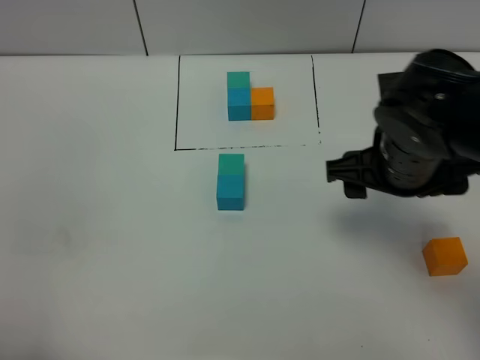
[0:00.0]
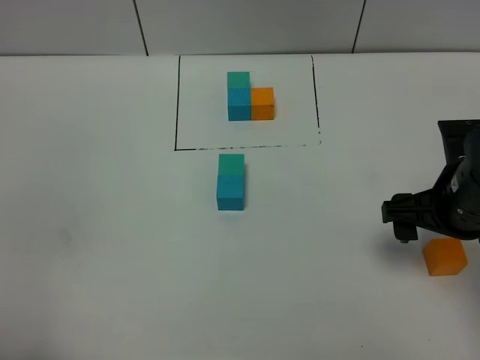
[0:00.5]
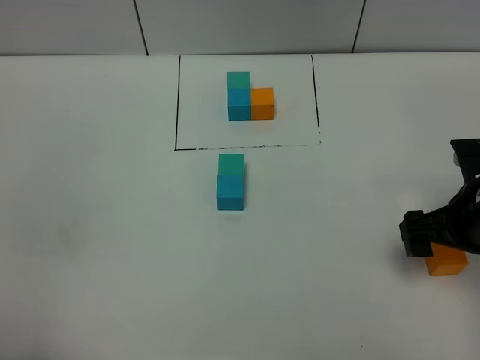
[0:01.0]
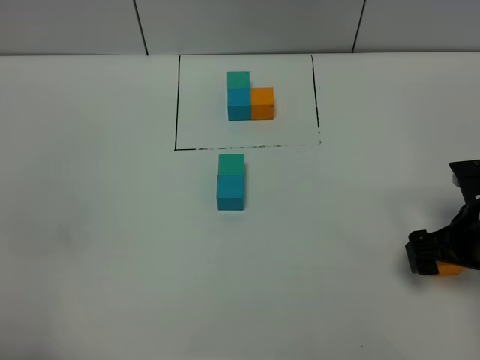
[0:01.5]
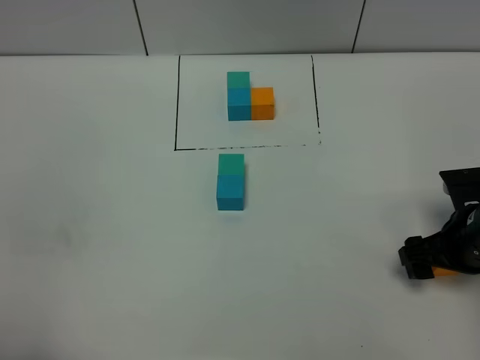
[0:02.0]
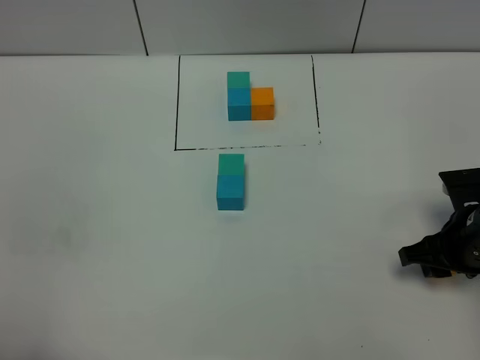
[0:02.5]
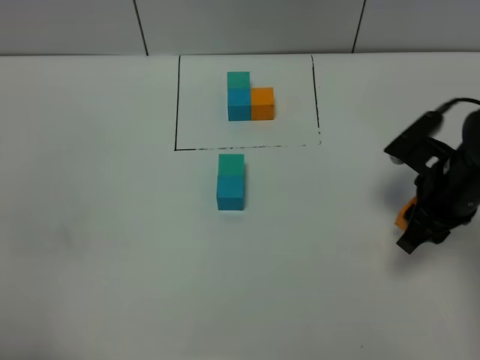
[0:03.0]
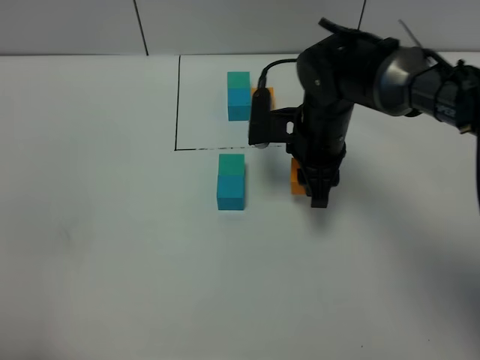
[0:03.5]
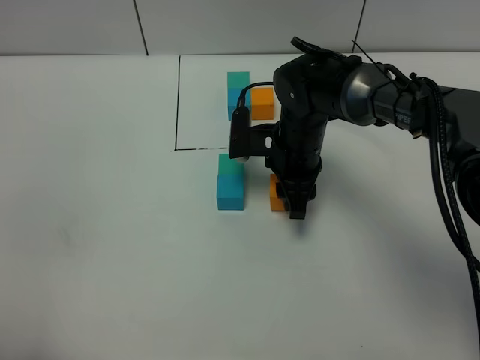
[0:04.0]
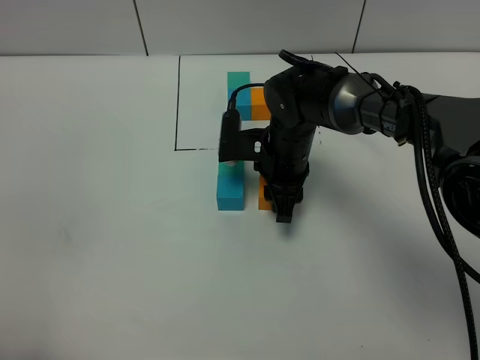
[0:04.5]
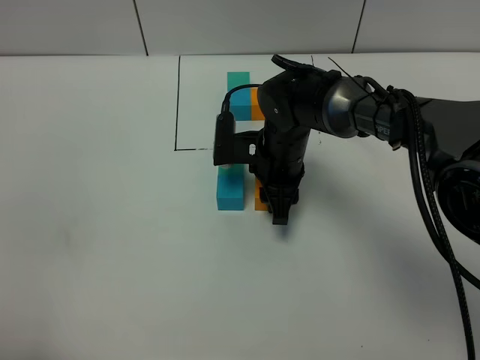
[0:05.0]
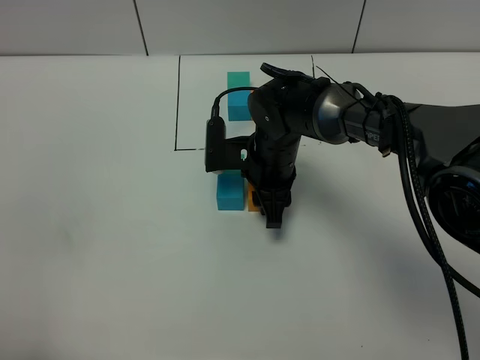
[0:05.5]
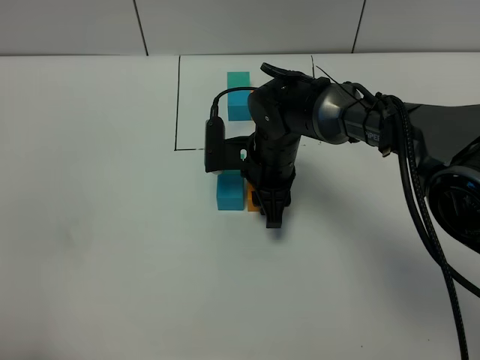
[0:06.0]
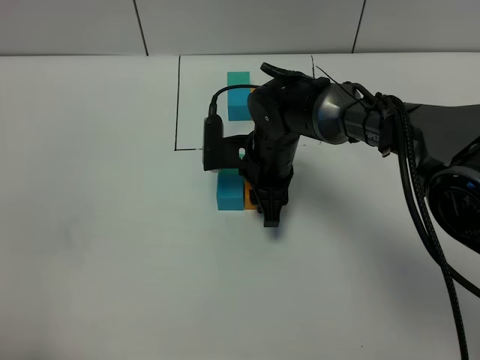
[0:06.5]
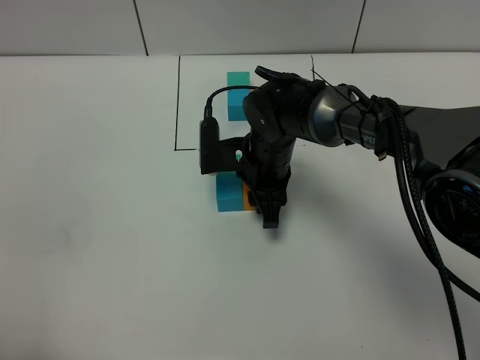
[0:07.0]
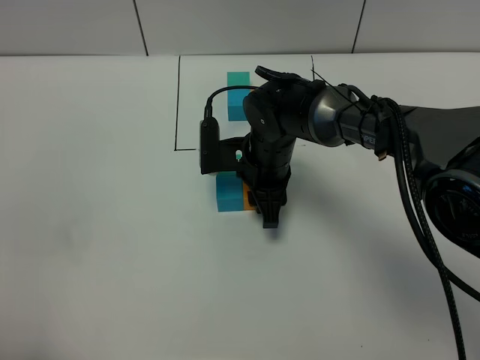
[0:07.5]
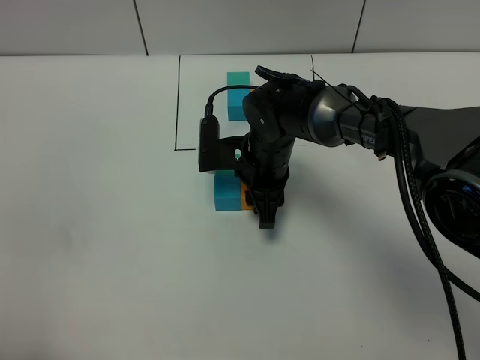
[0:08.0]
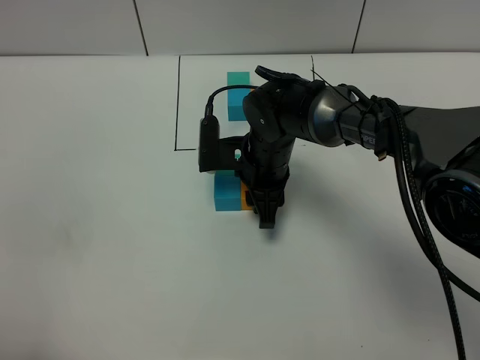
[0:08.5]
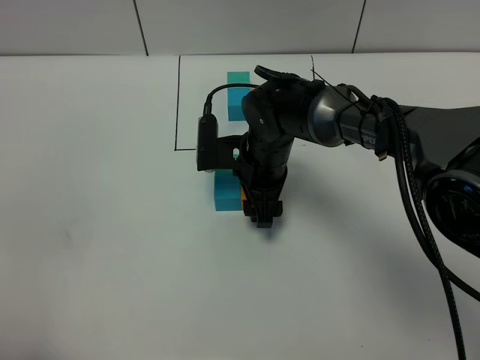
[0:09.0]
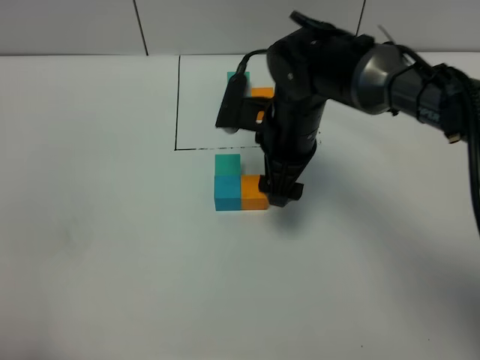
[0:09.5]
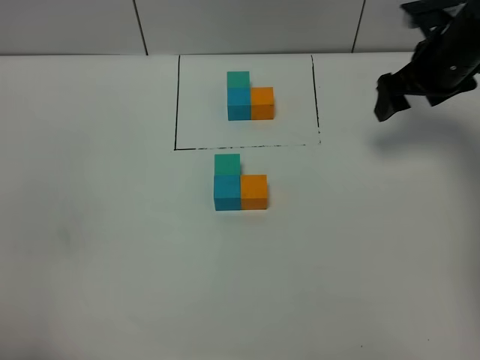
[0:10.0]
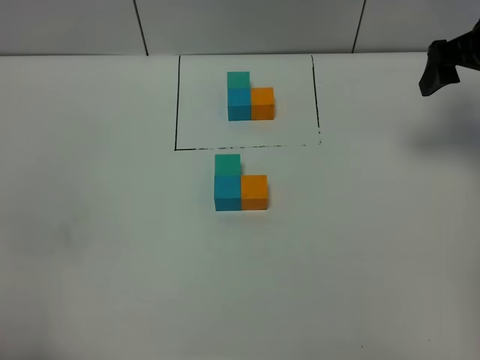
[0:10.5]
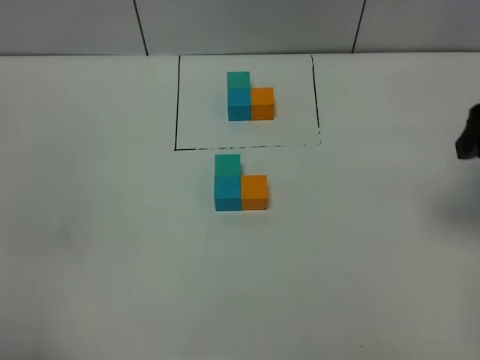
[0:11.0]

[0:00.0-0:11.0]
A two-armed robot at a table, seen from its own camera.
Task of the whole recording: According to the building block template in front, assemble the scattered blocks together.
Step, 0:00.0 to 0:09.0: Put the orange build block on the right of the blue build block.
0:00.0 to 0:02.0: The right gripper heads downward and to the right, covering approximately 15 cm.
0:02.0 to 0:03.5: The right gripper moves to the left and forward, approximately 20 cm, and closes its fingers.
0:03.5 to 0:05.5: The right gripper goes some 5 cm to the left and downward.
0:05.5 to 0:07.5: Neither gripper changes place.
0:07.5 to 0:09.0: The right gripper opens.
0:09.0 to 0:11.0: The right gripper goes roughly 35 cm to the right and upward.

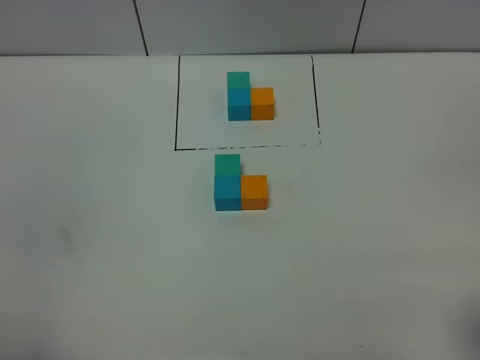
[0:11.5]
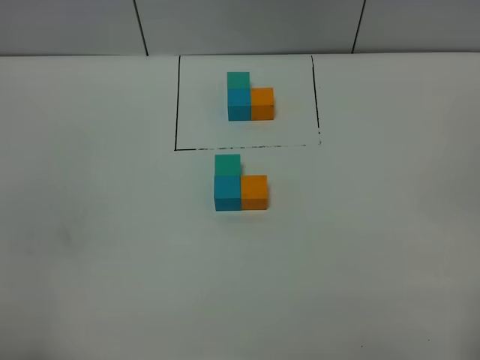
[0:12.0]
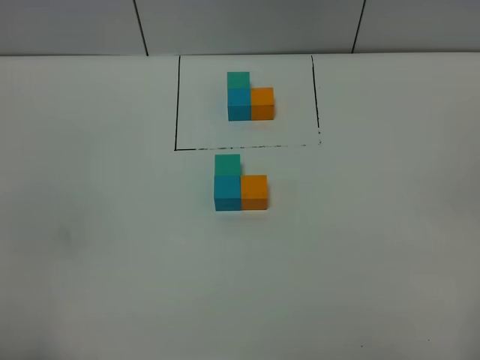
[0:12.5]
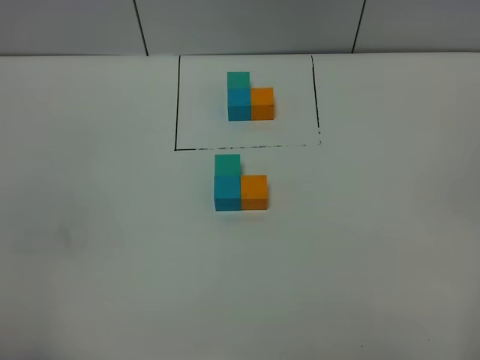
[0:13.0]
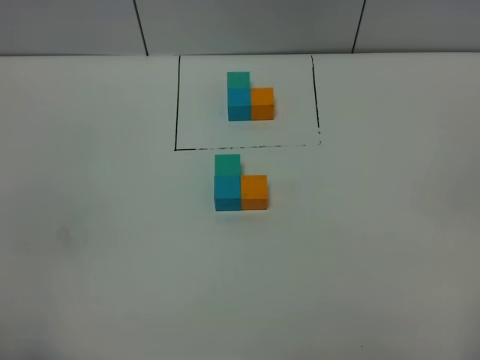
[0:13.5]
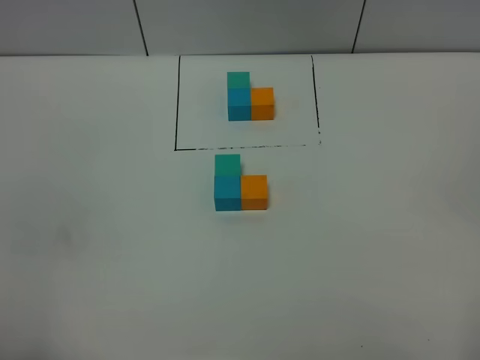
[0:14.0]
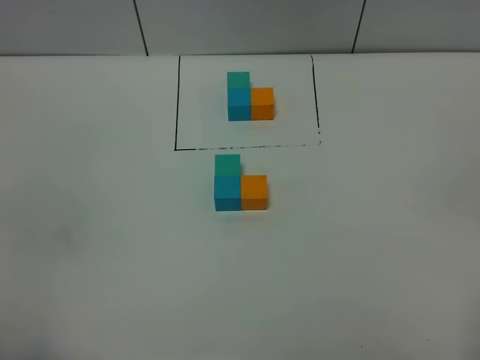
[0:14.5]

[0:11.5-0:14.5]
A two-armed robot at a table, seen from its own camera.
Task of the whole recording: According to the building block template in front, assemble the scattered blocks together.
0:13.0 to 0:14.5: Neither gripper changes place.

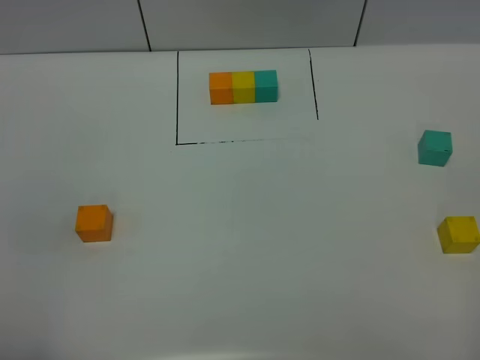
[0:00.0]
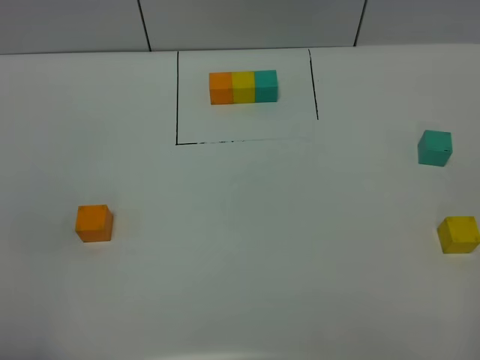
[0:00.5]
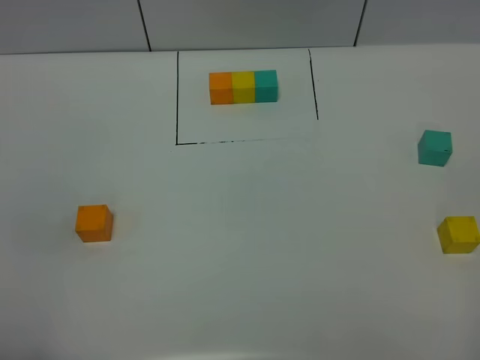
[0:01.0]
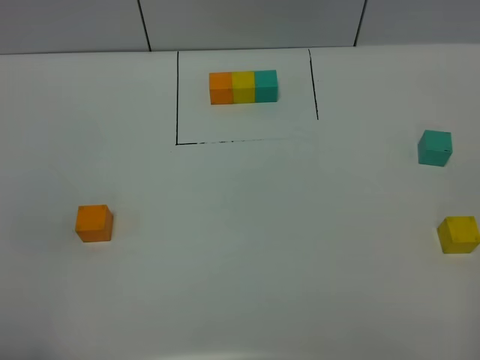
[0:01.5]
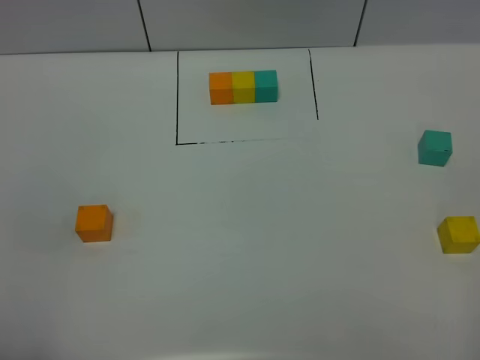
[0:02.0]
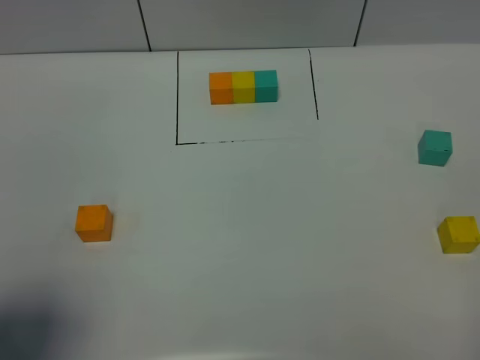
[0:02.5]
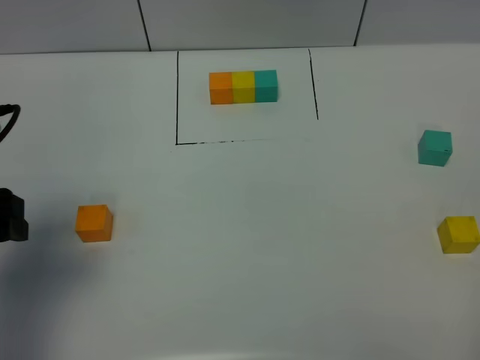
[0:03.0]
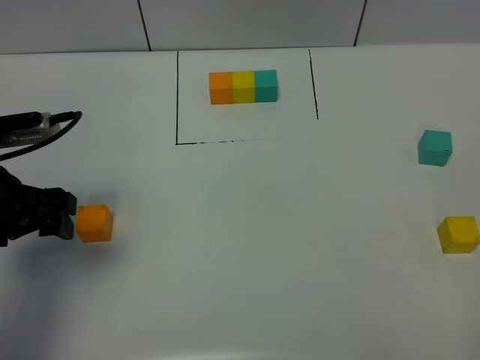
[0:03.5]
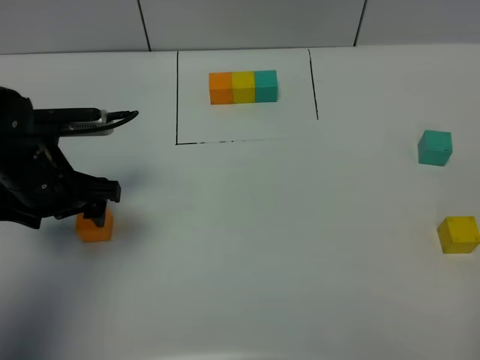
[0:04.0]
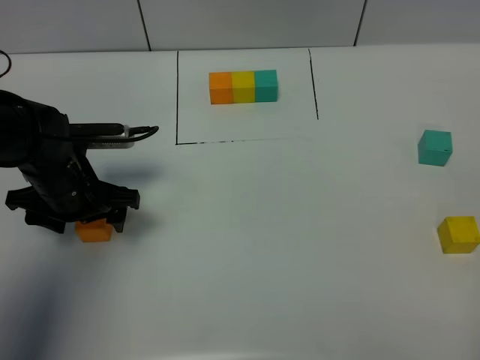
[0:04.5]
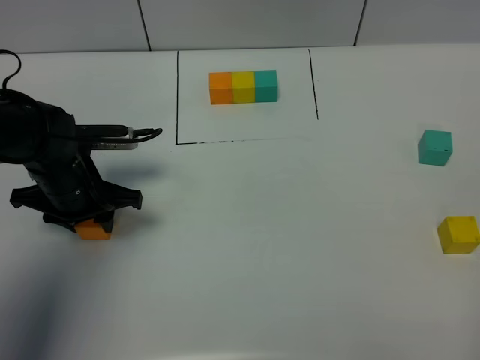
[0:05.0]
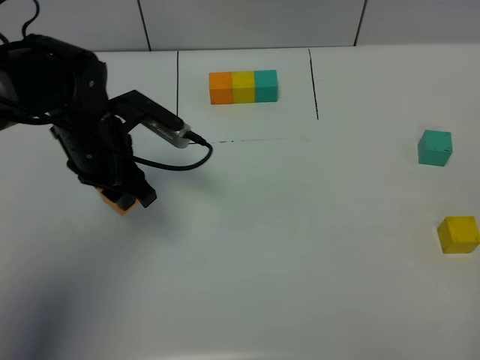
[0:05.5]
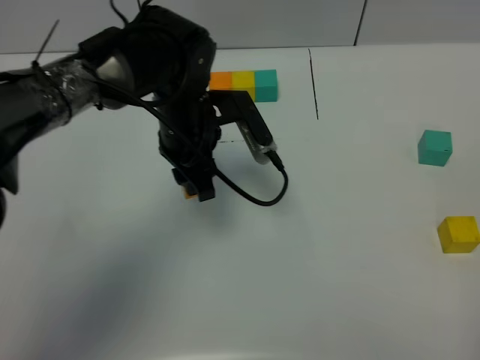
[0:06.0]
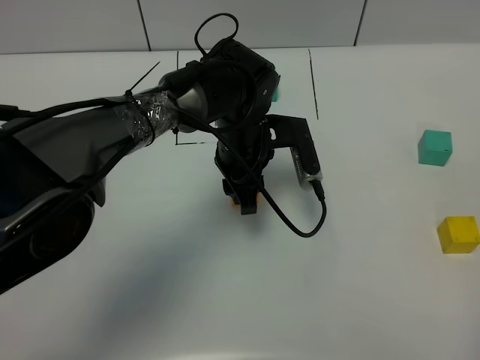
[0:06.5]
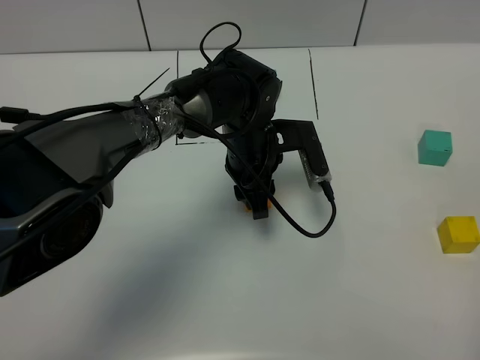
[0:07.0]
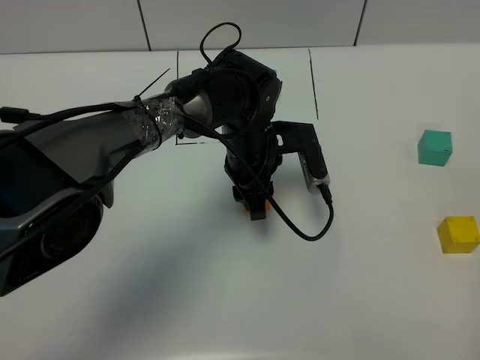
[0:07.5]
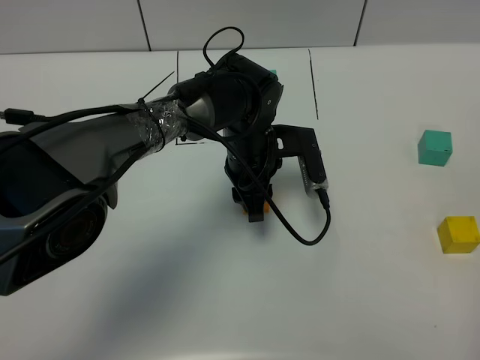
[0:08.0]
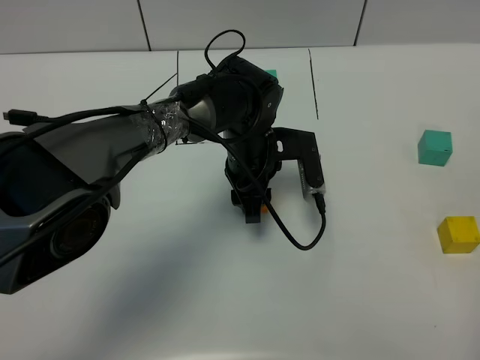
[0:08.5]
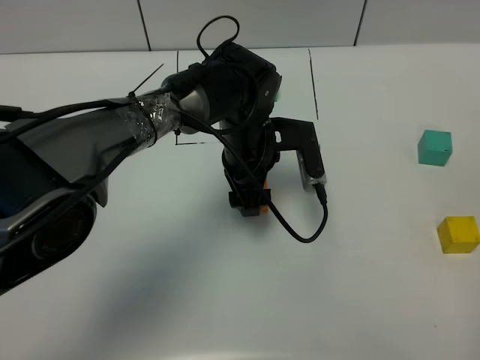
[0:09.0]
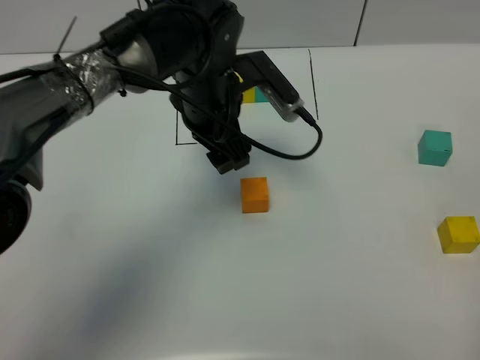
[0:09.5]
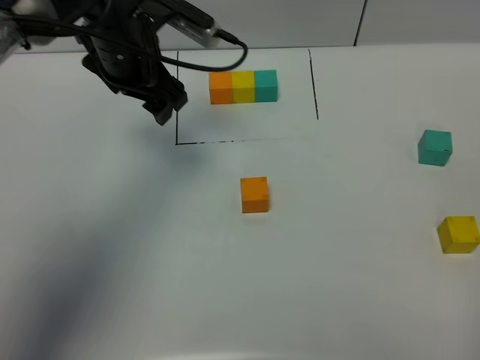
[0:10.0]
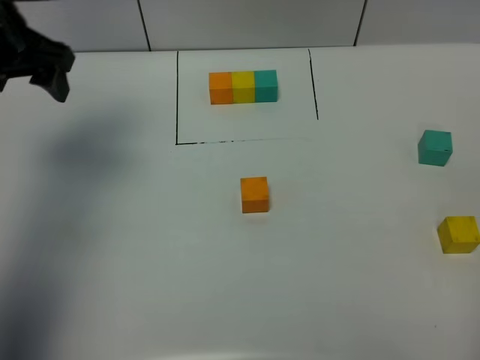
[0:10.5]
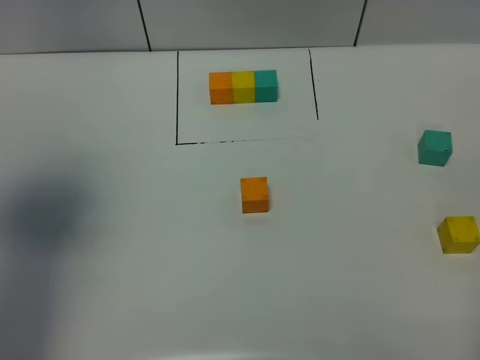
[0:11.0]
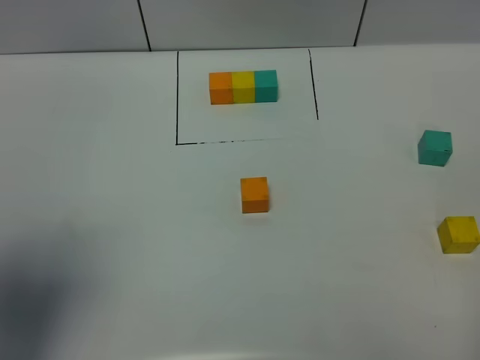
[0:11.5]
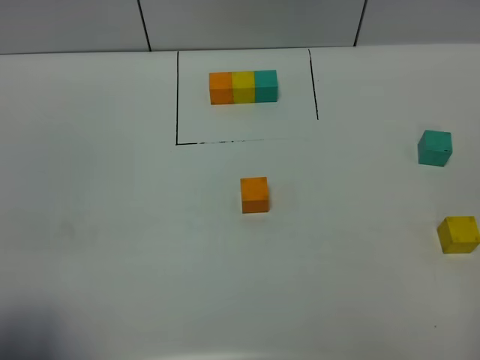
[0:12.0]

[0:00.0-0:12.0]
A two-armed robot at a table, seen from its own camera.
Task of the whole recording: According to the building block template in front, assemble the scattered blocks together.
Step, 0:00.0 to 0:08.5: Put the orange build block in the center of the table.
0:00.0 to 0:02.0: Neither gripper changes place.
0:02.0 to 0:04.0: The left gripper heads forward, covering some 30 cm.
0:04.0 to 0:06.0: The left gripper is displaced to the right and forward by some 20 cm, and closes up.
0:06.0 to 0:08.0: The left gripper goes roughly 10 cm to the right and downward.
0:08.0 to 0:10.0: The left gripper moves to the left and upward, about 20 cm, and opens up.
0:10.0 to 0:12.0: The left gripper heads backward and to the left, covering some 40 cm.
